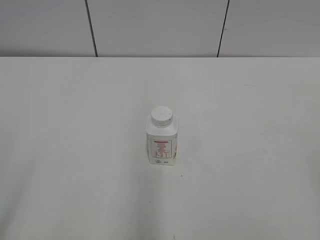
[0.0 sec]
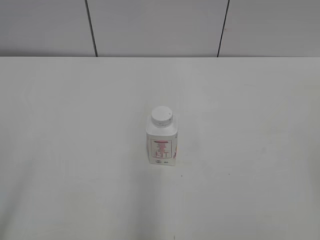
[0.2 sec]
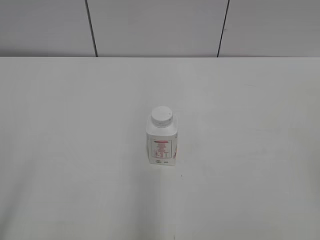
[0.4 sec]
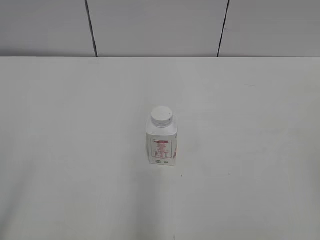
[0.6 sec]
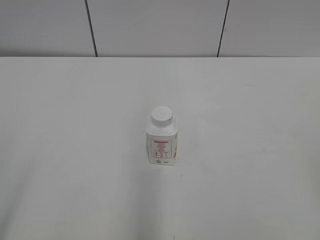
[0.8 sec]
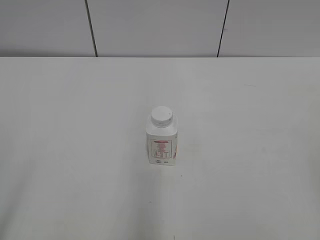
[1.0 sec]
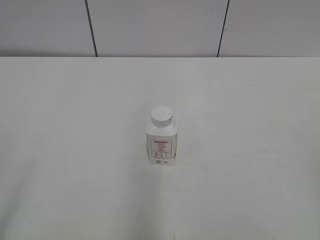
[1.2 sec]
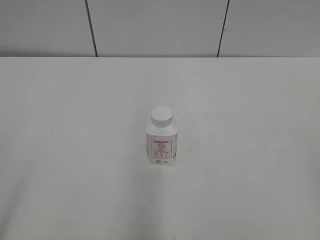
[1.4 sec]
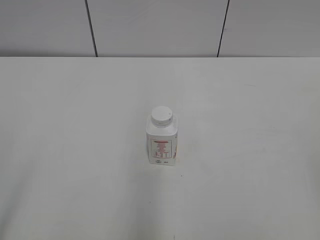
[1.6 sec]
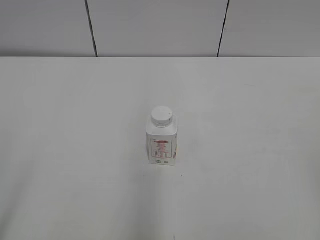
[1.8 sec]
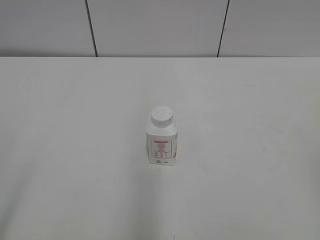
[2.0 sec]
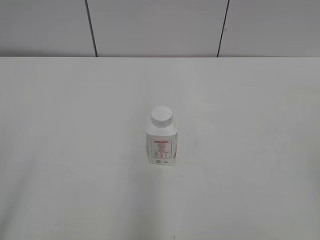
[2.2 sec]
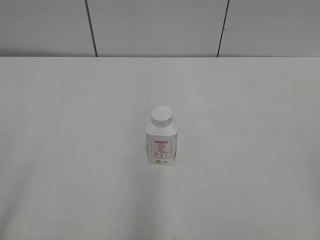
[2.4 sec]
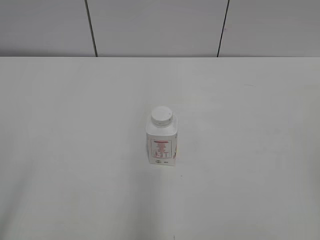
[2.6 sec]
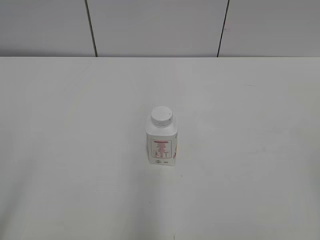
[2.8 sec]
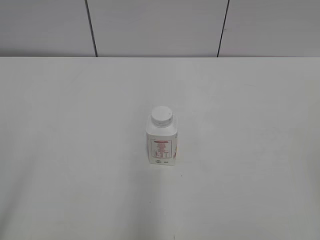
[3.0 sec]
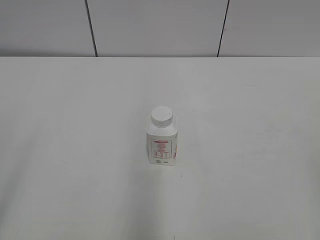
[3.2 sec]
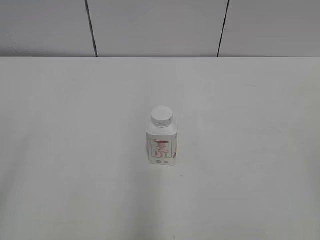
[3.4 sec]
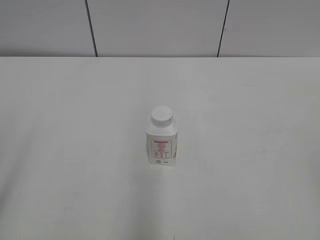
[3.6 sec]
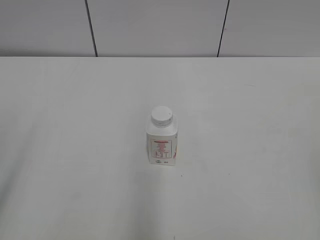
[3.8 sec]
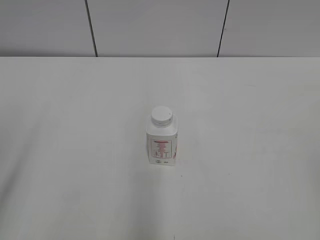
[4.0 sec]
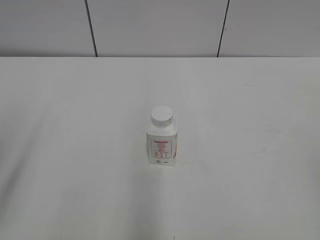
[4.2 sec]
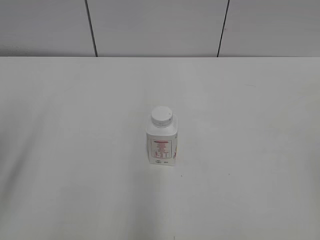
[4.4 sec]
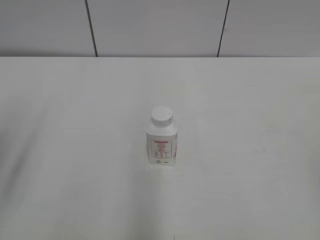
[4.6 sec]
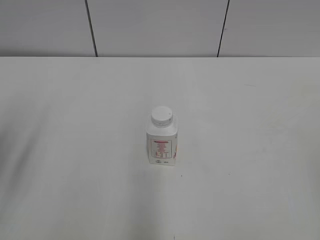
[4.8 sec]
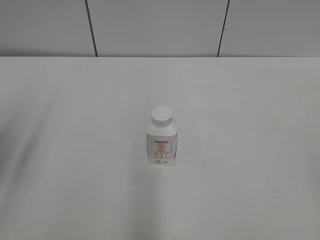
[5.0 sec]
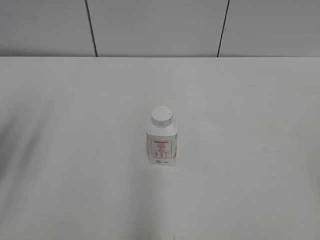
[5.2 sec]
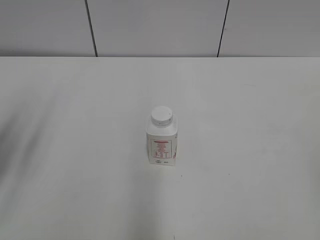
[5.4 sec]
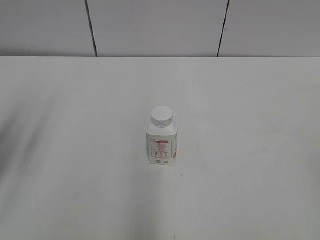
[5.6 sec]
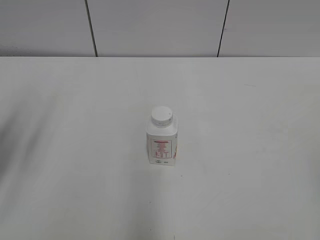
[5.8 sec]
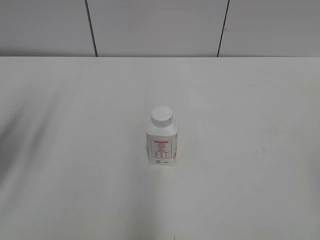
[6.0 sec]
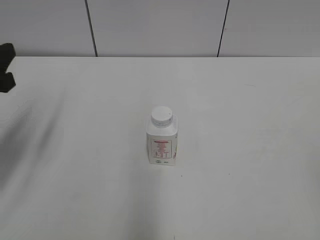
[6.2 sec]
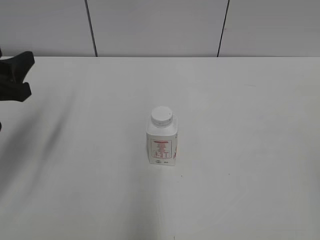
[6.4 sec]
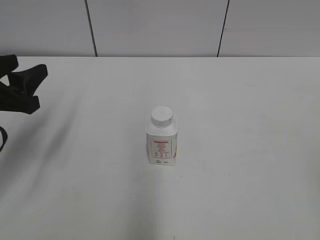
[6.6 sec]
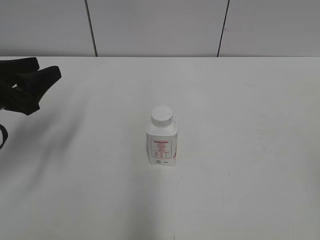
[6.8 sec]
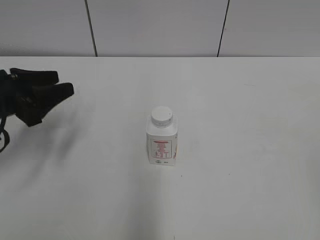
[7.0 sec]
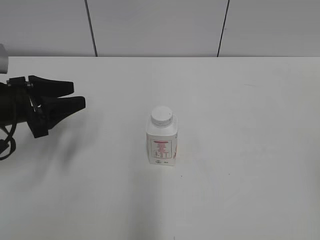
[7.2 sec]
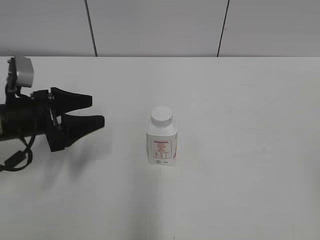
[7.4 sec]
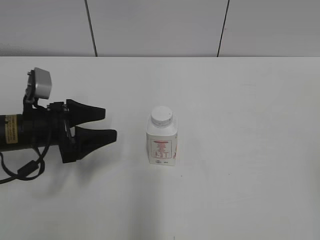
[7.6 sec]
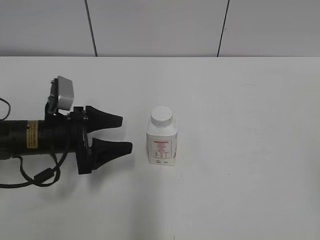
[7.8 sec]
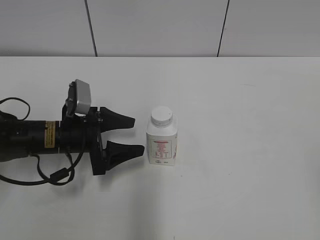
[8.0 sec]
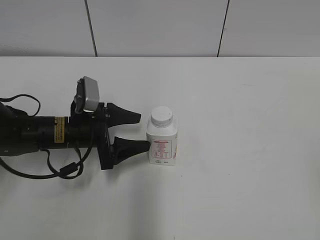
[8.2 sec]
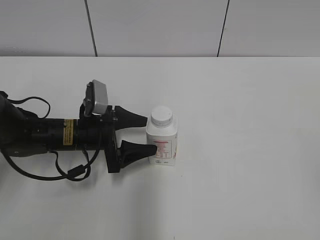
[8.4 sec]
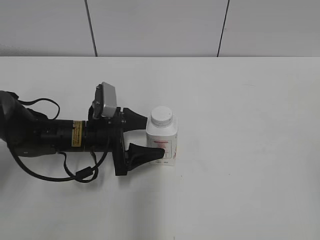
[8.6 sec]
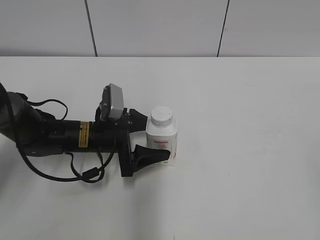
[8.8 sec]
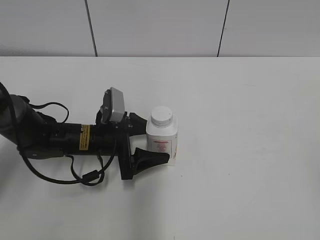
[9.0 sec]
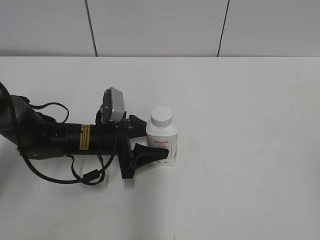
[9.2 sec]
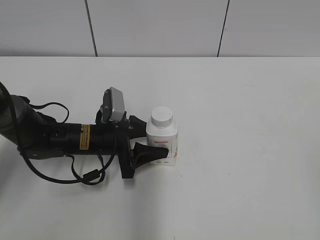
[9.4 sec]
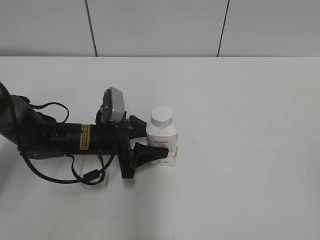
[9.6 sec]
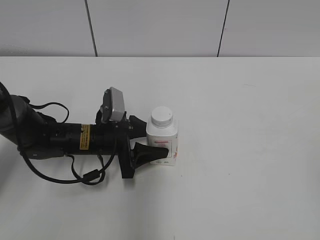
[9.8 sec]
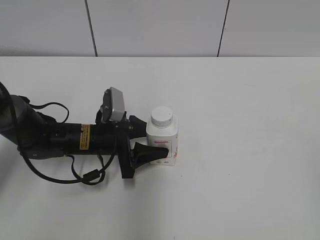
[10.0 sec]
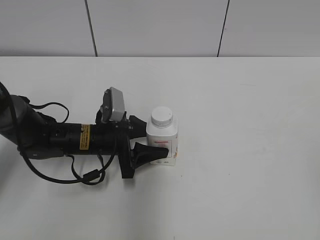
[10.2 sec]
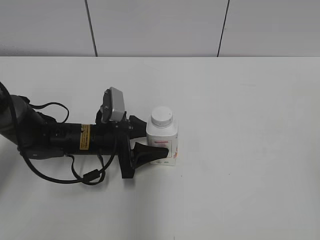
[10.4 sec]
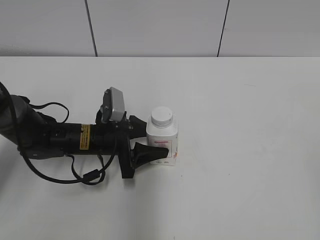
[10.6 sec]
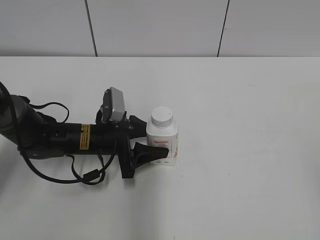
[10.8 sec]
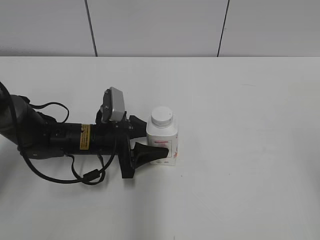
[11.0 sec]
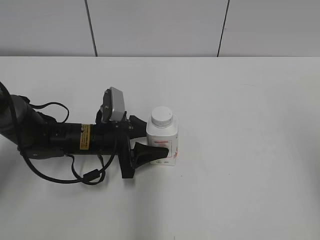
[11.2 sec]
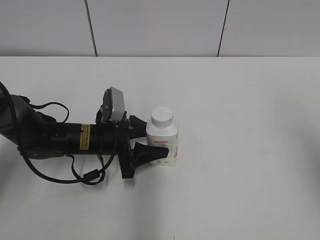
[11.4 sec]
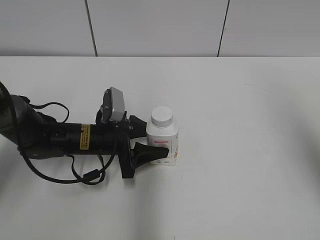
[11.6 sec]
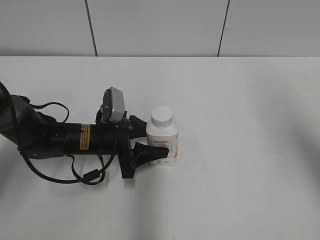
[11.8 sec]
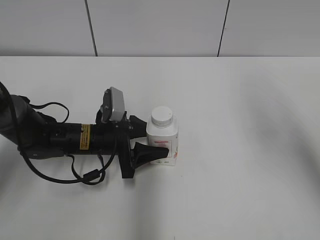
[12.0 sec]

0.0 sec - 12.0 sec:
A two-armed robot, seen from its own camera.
Step, 0.0 sec - 9.6 sec: Grasp the bottle and move it to the center of the table with the left gripper.
1.6 sec - 3.0 sec: Both grippers stay about where they are.
4.4 sec - 6.0 sec: The left gripper shifts about 10 cm forward.
6.0 sec - 7.6 sec: The left gripper goes some 15 cm downward, forward and to the right, and opens its fingers.
7.6 sec - 9.0 sec: The left gripper travels to the right and downward by approximately 10 cm.
9.0 sec - 10.4 sec: The left gripper closes its fingers.
10.4 sec - 12.0 sec: The right gripper heads forward, covering about 25 cm, and closes.

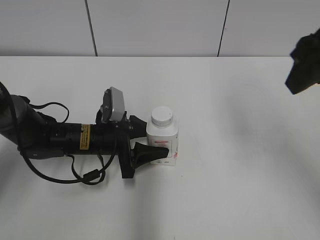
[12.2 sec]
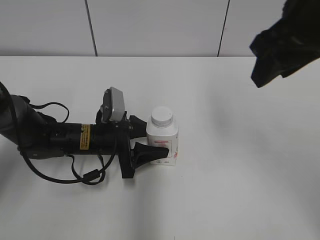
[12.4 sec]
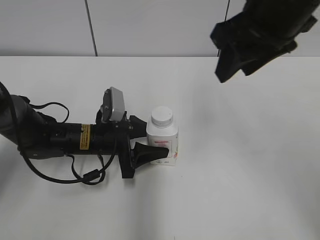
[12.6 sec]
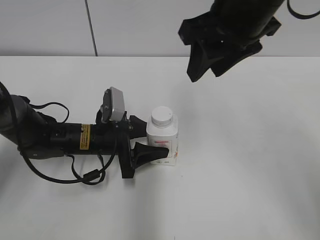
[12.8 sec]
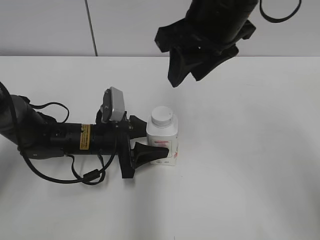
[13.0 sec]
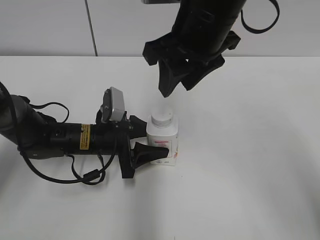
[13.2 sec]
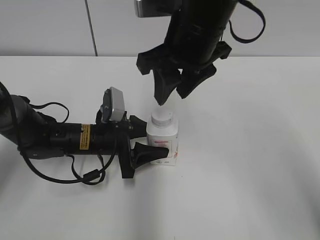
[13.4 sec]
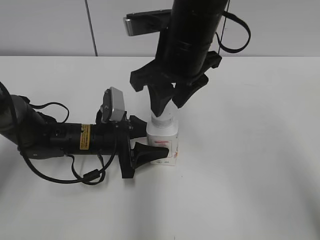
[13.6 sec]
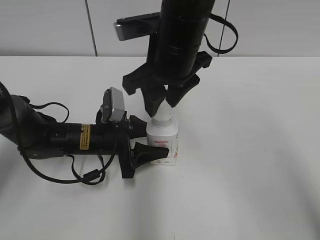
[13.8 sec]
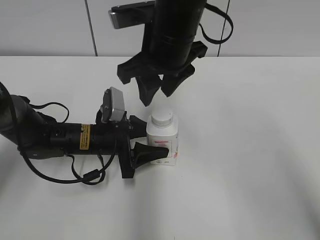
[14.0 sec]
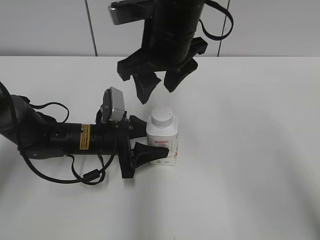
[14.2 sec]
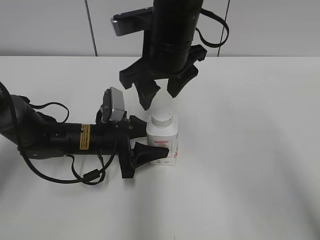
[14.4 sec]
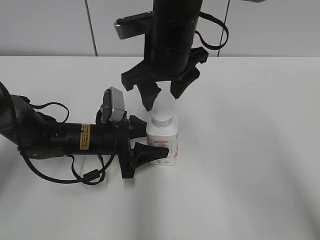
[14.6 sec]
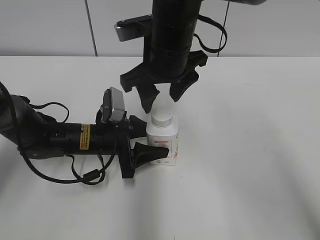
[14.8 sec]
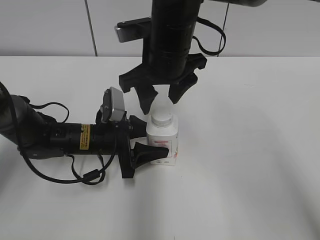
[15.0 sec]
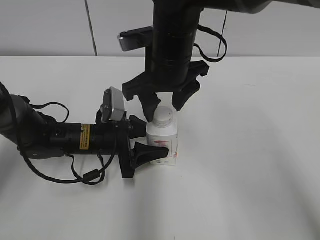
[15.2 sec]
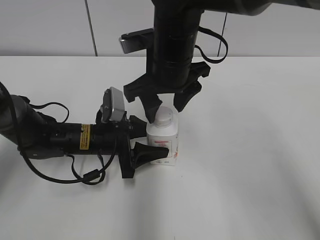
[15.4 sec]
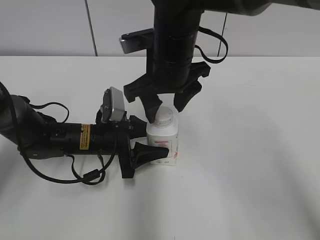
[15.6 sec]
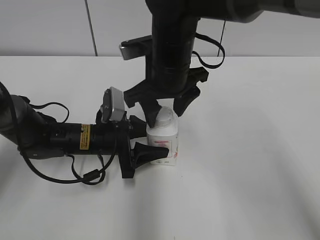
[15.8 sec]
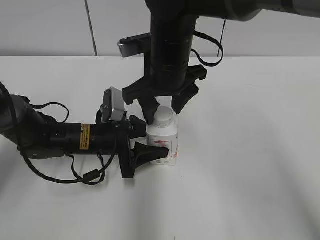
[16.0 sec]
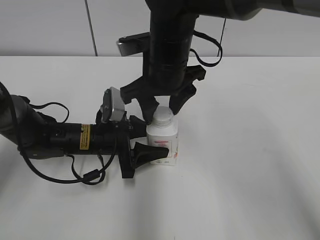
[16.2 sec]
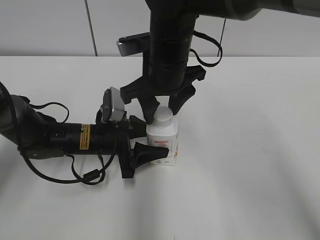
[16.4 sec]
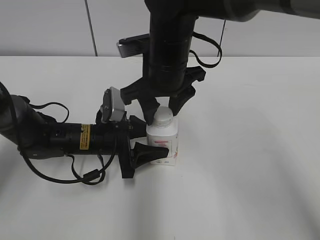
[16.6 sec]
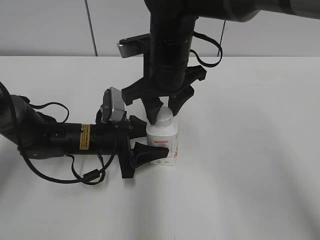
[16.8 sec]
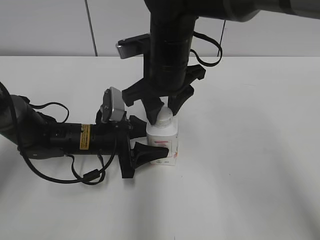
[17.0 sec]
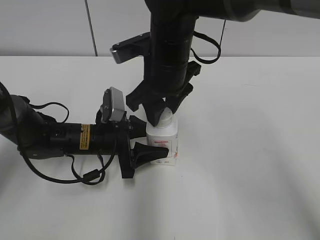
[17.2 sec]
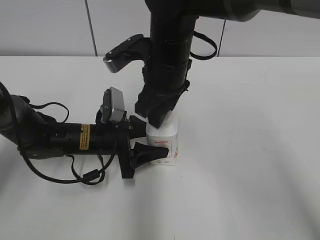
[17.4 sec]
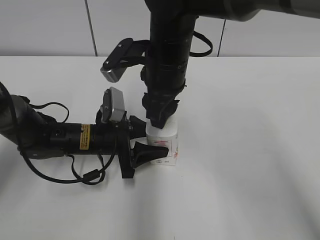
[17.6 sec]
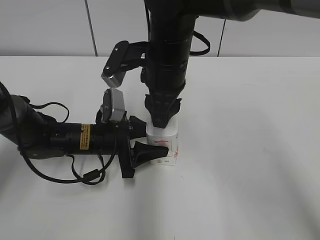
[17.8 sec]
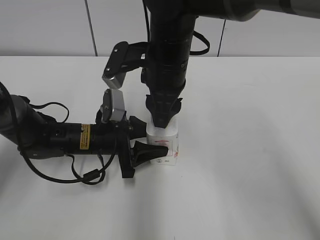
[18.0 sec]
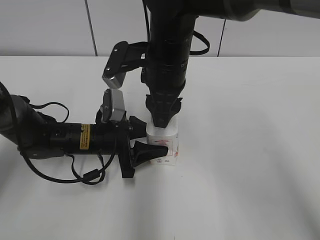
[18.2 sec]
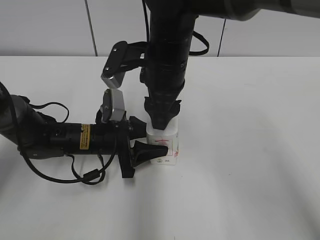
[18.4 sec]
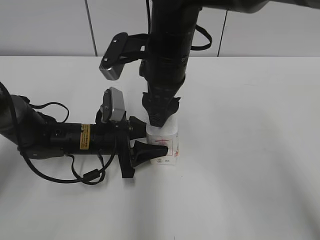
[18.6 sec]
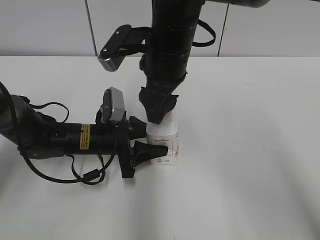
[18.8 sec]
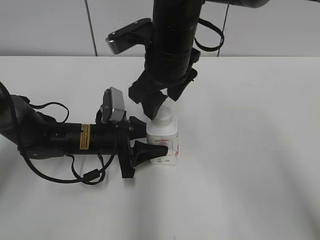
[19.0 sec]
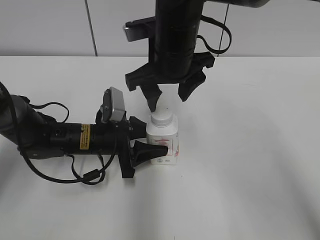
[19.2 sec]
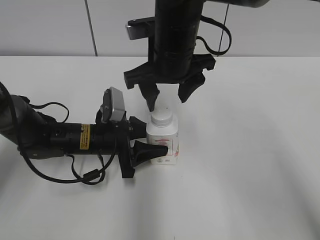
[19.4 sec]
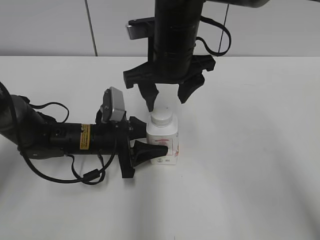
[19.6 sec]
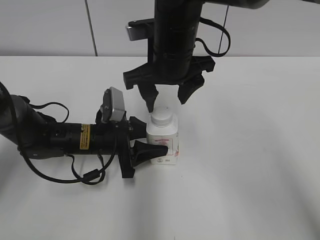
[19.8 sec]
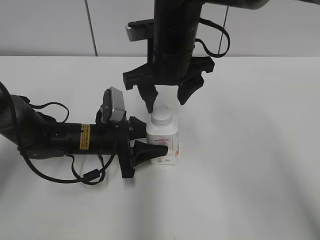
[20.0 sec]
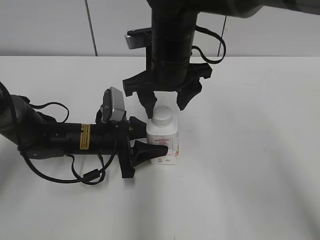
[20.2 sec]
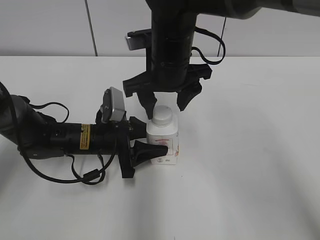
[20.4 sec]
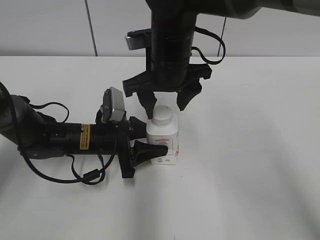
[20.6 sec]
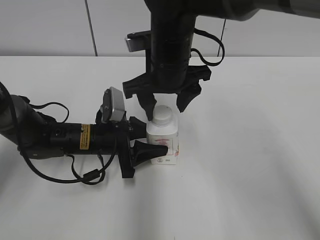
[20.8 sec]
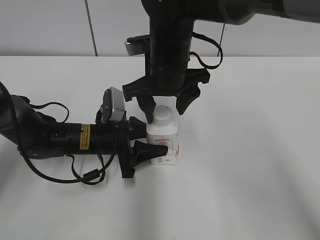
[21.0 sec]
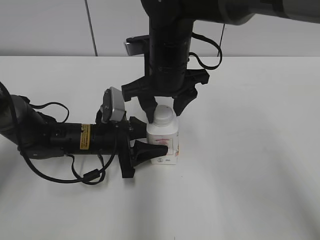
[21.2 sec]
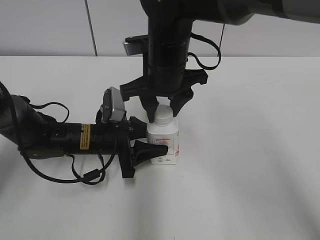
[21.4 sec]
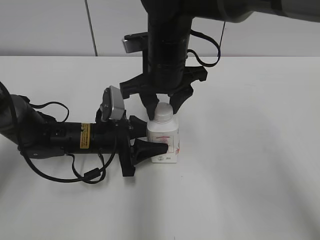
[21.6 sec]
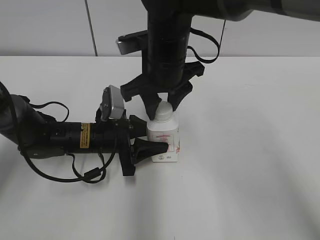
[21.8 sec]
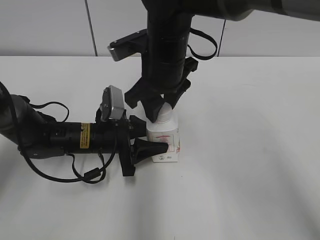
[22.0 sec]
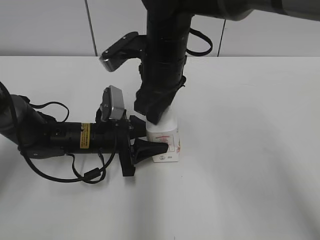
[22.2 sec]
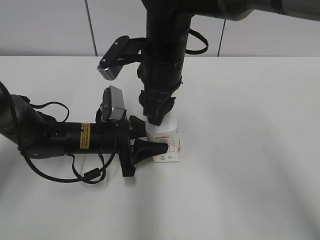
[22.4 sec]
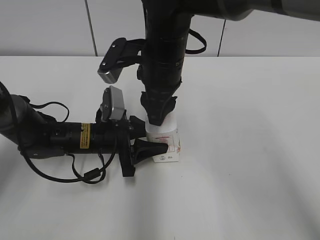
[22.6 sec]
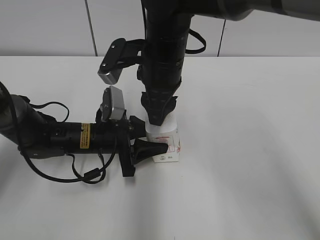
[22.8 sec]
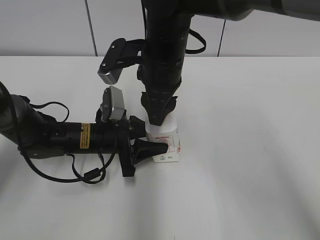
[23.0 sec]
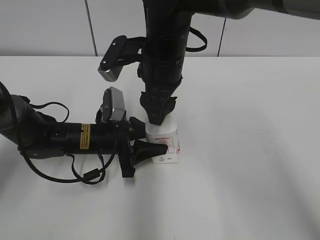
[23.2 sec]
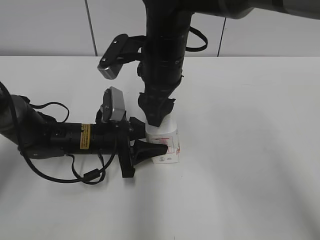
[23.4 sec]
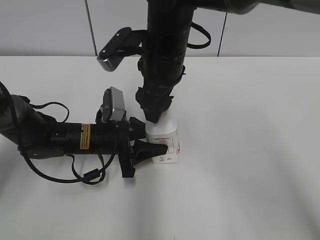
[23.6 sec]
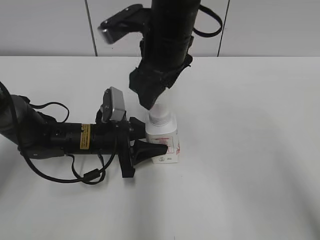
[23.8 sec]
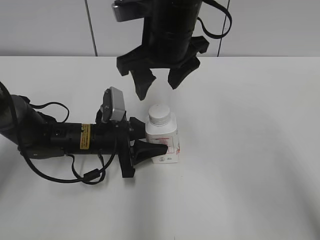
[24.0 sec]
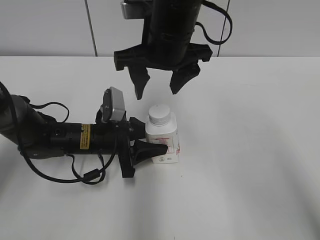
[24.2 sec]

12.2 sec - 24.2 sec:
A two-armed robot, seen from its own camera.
12.2 sec - 13.8 sec: The right gripper moves to the left and downward, some 20 cm.
13.8 sec - 15.2 sec: The right gripper opens.
15.2 sec - 16.6 sec: The grippers stay close to where they were, moving slightly.
16.6 sec - 18.2 sec: The right gripper closes up.
18.2 sec - 19.8 sec: The right gripper opens its fingers.
19.8 sec - 21.2 sec: The grippers move only a little.
21.2 sec - 22.6 sec: The right gripper closes.
22.6 sec - 24.2 sec: The right gripper opens.
